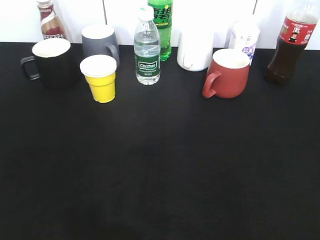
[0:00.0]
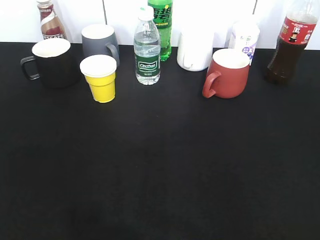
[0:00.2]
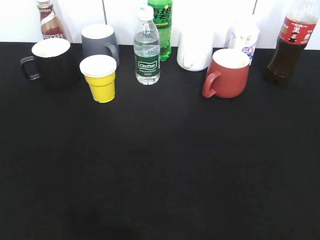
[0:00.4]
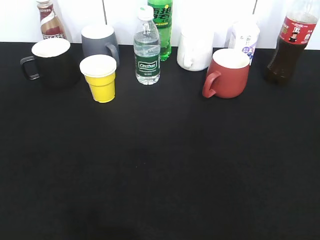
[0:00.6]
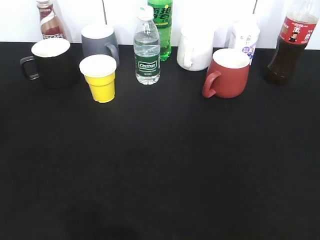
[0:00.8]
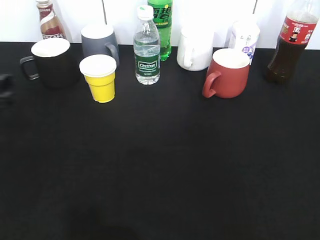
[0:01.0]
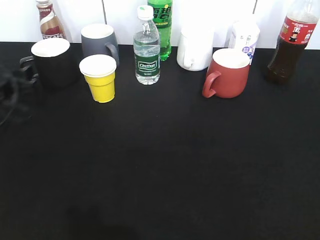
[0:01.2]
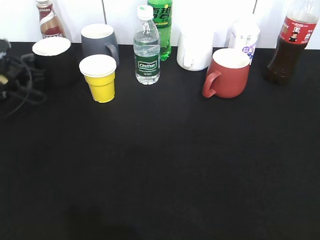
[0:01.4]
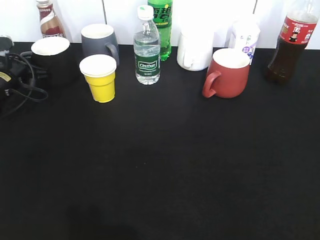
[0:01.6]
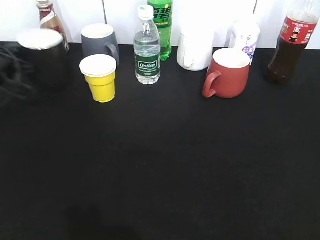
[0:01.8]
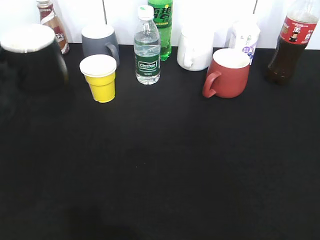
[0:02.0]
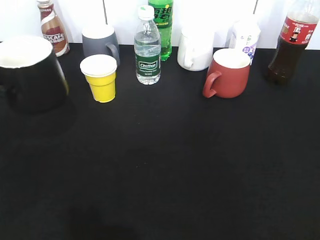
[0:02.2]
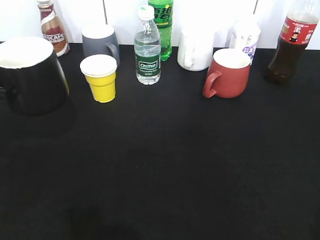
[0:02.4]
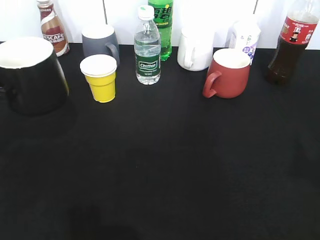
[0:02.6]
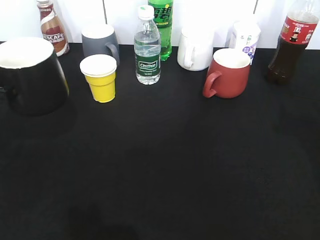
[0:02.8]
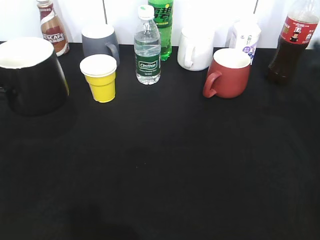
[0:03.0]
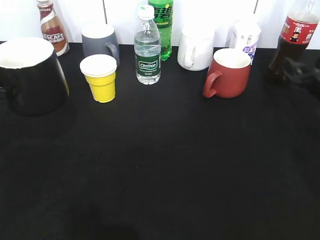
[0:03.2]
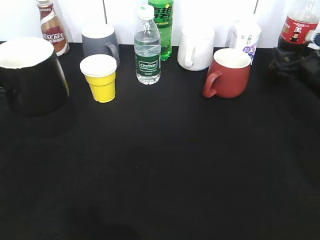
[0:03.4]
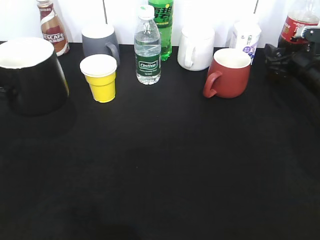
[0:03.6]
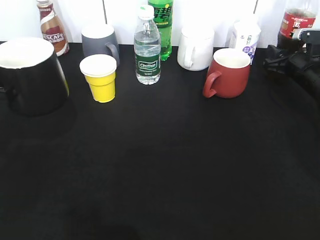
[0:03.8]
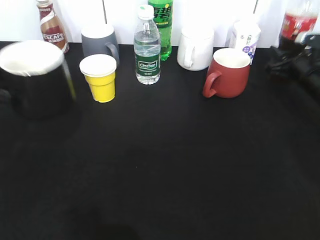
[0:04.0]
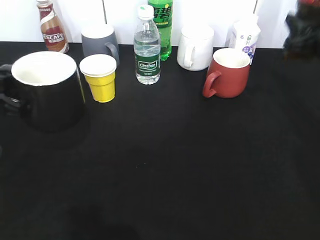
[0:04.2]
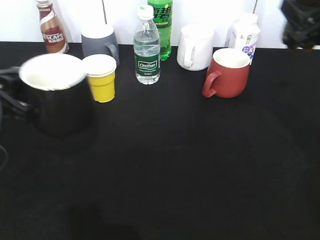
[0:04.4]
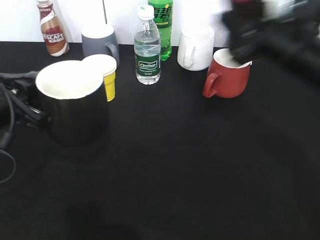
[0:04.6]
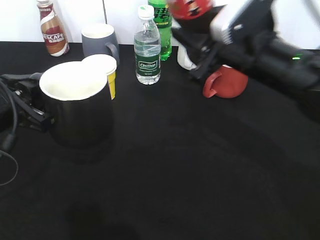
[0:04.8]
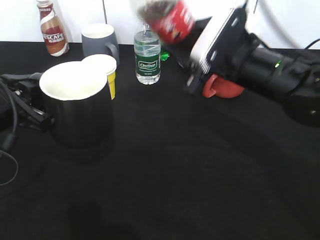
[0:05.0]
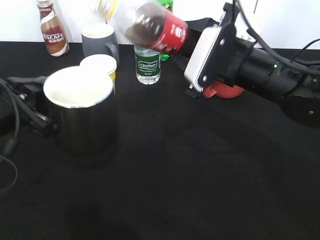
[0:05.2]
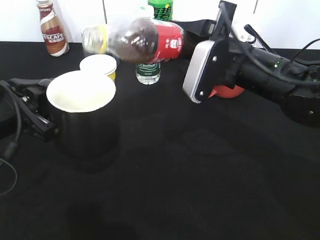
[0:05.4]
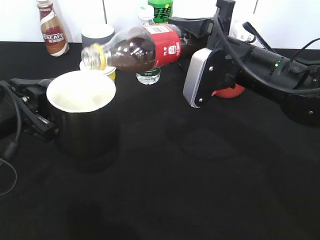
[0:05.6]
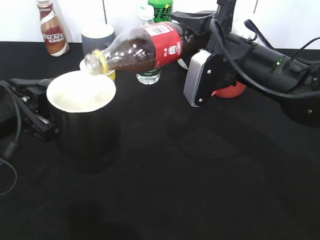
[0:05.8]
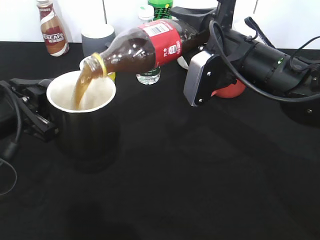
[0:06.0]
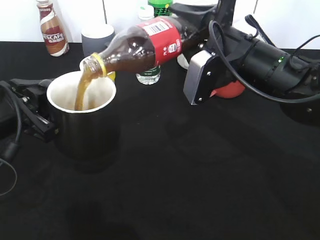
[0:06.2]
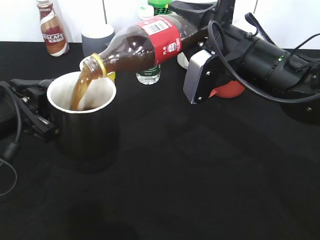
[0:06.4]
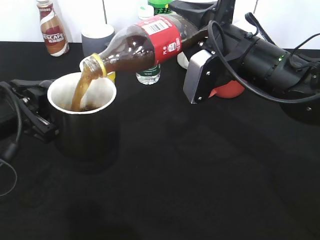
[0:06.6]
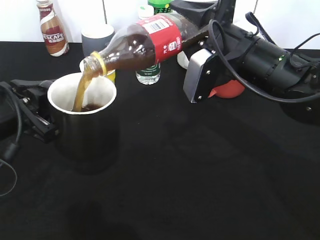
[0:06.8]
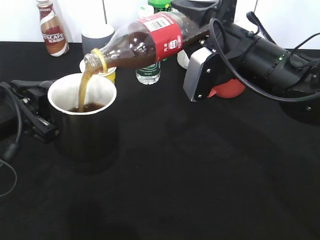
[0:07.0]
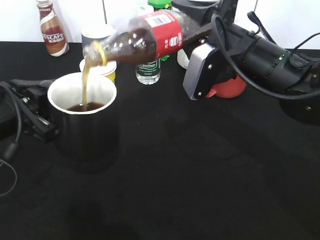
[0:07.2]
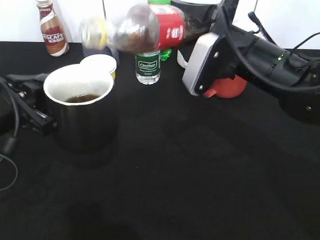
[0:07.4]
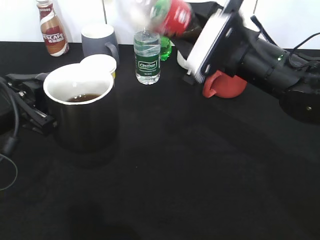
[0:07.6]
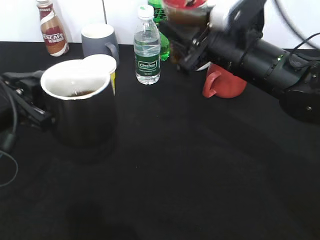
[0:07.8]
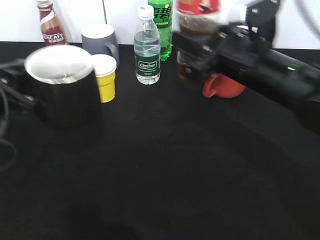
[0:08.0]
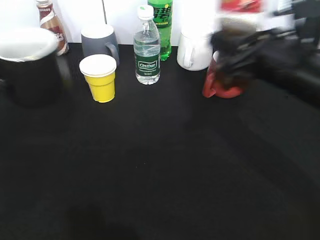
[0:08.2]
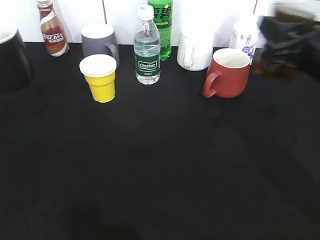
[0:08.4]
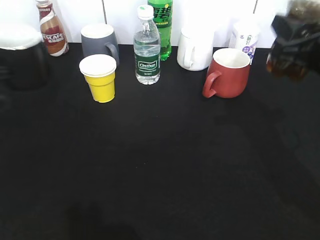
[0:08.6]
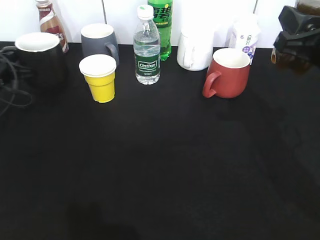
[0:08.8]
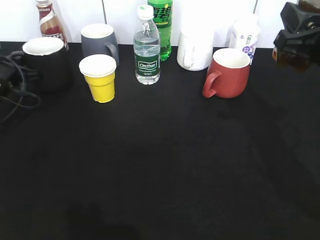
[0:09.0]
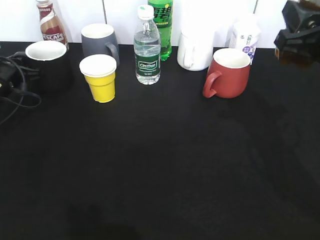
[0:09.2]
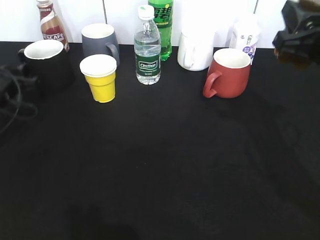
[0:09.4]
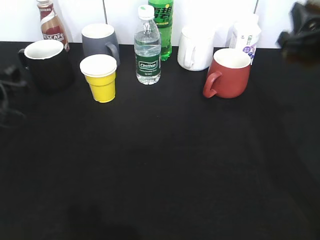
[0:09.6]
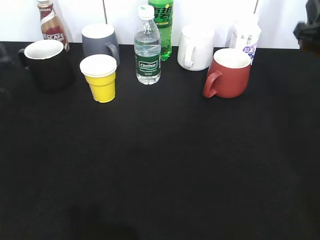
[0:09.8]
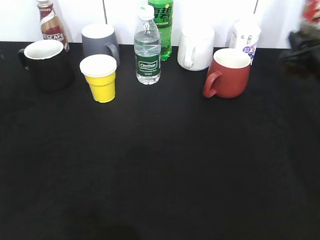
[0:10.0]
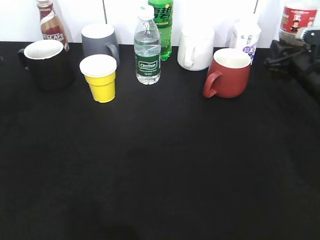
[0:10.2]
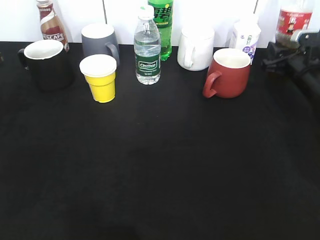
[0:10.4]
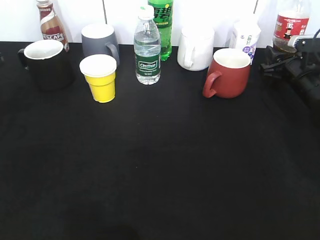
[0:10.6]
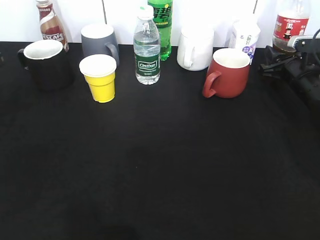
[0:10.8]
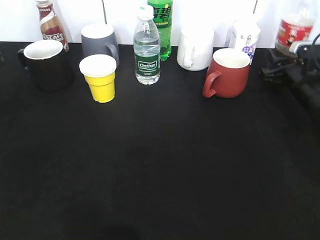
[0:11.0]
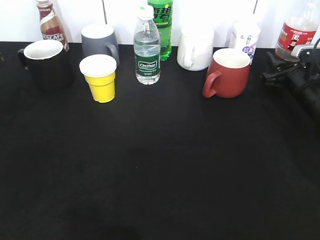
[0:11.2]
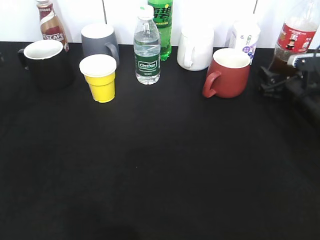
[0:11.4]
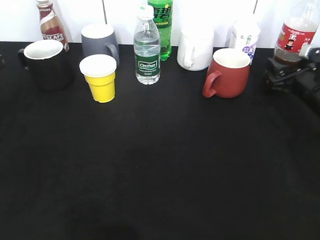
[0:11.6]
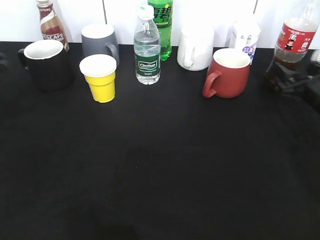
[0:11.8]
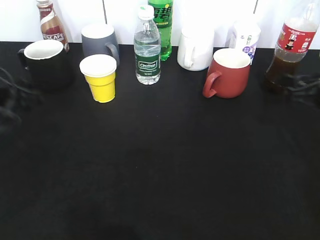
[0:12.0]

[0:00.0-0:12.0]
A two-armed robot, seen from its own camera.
Step, 0:01.8 to 0:02.8: Lift the black cup with left gripper.
Step, 0:03.0 to 0:03.8: Grasp the bottle with cola with right gripper.
Step, 0:04.0 to 0:07.4: Pour the cola from bottle to cup with right gripper.
Step, 0:07.6 to 0:09.8: Place the black cup on the table with left gripper.
0:00.0 to 0:01.6: The left gripper travels forward by approximately 40 cm, and closes its fingers.
0:01.6 to 0:03.0: The right gripper moves forward, some 30 cm. Meanwhile the left gripper travels backward and upward by approximately 20 cm.
0:03.0 to 0:04.4: The right gripper is displaced upward by about 5 cm, moves roughly 15 cm forward and comes back, and closes up.
0:04.4 to 0:06.0: The right gripper shifts roughly 15 cm to the left.
0:07.6 to 0:09.0: The left gripper heads forward, to the left and downward, covering about 20 cm, while the right gripper shifts approximately 15 cm to the right and backward.
0:09.0 to 0:10.4: The left gripper heads backward and upward, covering roughly 15 cm, and opens its fingers, while the right gripper goes about 20 cm forward, downward and to the right.
0:10.4 to 0:12.0: The right gripper is displaced backward by roughly 10 cm, and opens up.

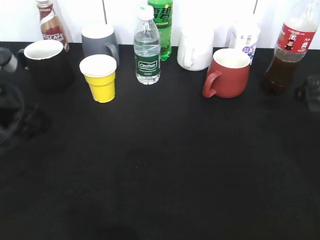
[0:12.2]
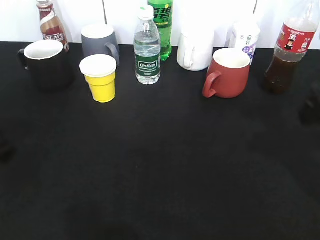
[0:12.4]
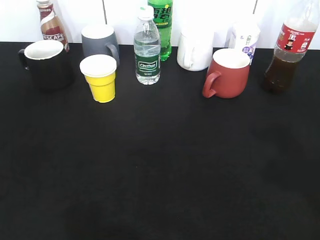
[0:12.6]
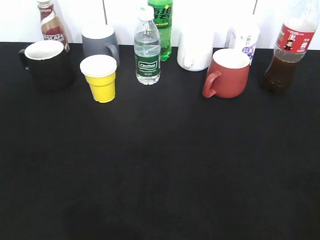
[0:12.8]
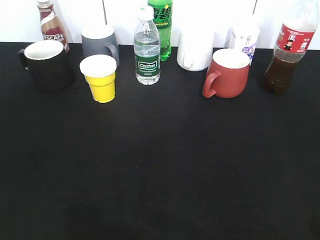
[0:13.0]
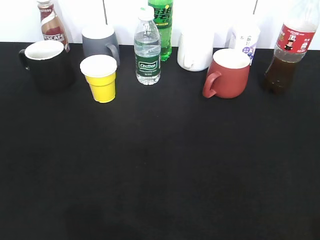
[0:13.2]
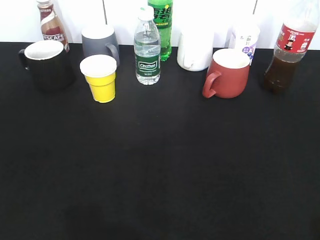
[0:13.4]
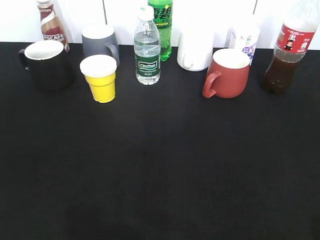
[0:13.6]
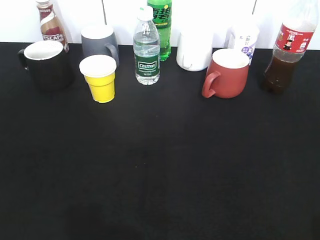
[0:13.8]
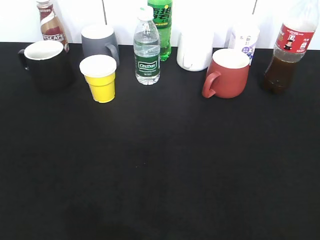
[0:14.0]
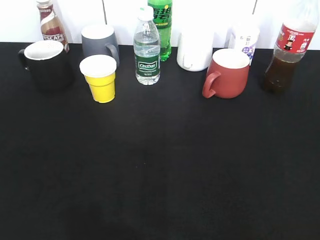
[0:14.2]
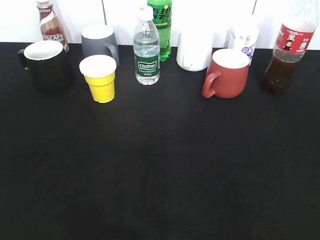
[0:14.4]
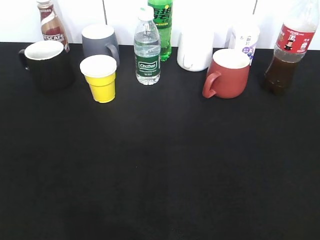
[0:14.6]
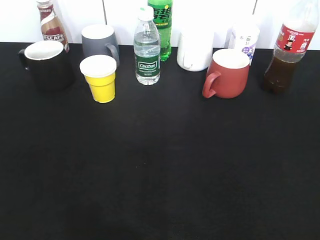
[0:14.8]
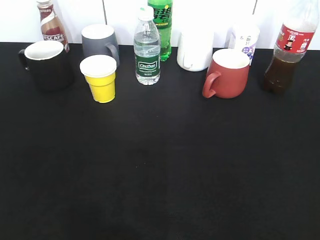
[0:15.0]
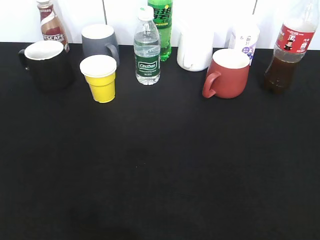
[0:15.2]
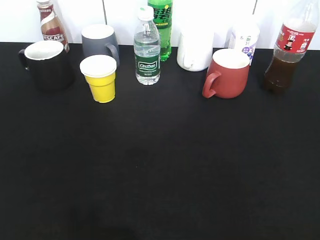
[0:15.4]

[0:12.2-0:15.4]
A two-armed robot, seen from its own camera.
0:12.2 to 0:13.8: Both grippers travel together backward, approximately 25 cm.
0:13.8 to 0:15.4: There are only small adjustments of the grippers.

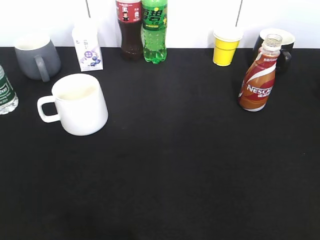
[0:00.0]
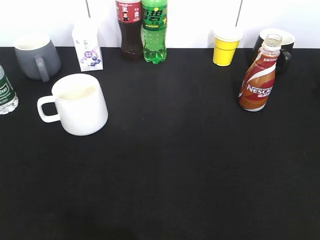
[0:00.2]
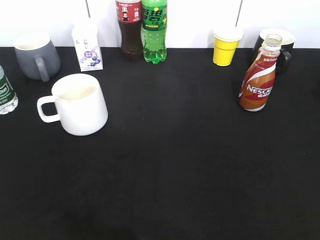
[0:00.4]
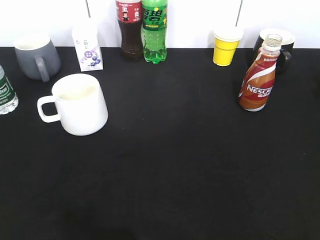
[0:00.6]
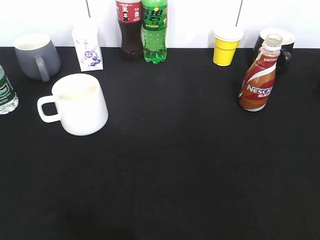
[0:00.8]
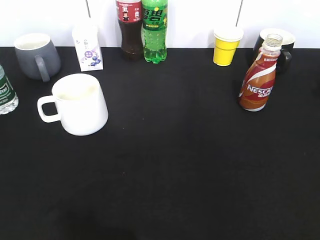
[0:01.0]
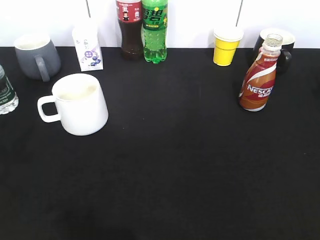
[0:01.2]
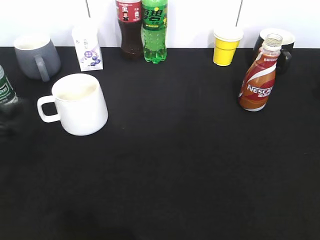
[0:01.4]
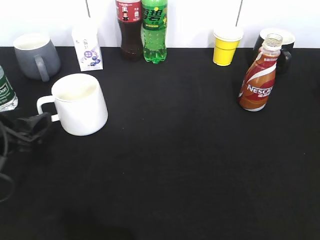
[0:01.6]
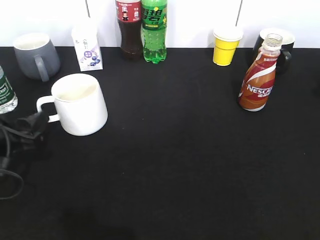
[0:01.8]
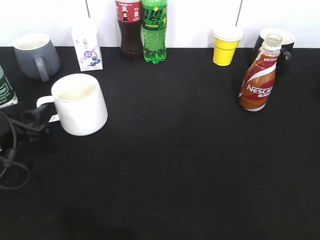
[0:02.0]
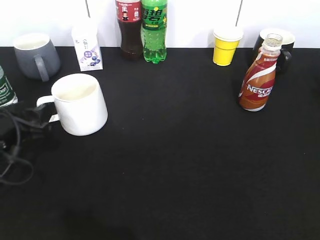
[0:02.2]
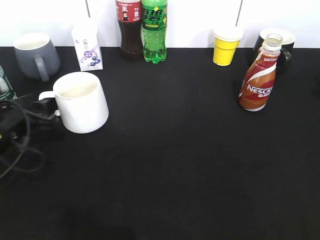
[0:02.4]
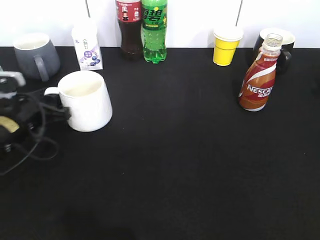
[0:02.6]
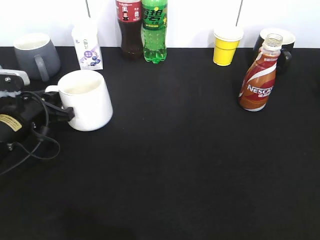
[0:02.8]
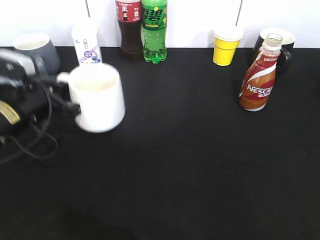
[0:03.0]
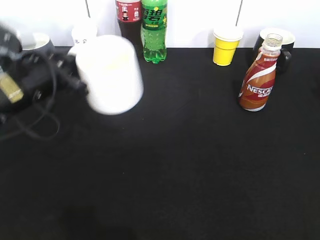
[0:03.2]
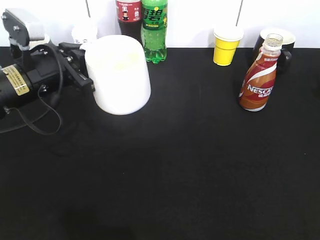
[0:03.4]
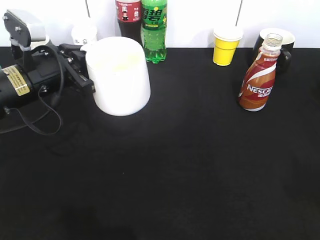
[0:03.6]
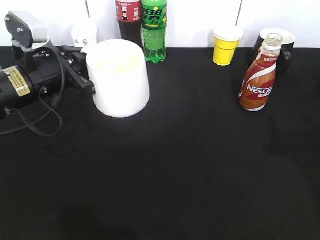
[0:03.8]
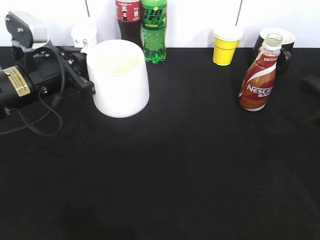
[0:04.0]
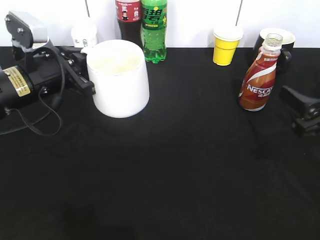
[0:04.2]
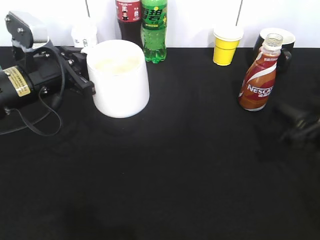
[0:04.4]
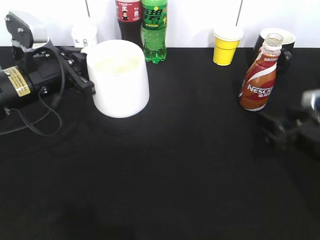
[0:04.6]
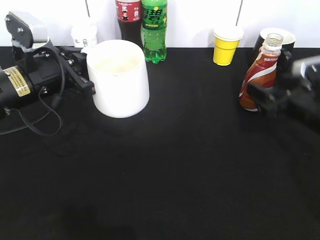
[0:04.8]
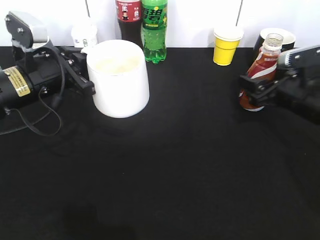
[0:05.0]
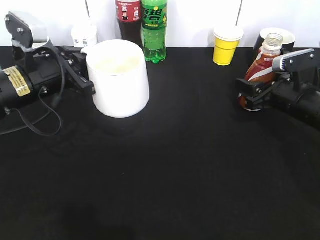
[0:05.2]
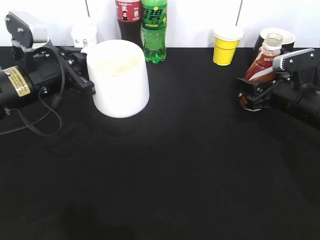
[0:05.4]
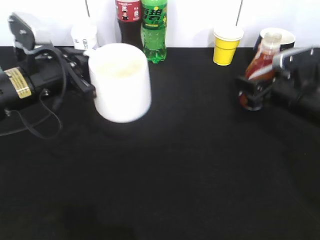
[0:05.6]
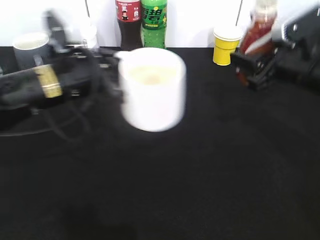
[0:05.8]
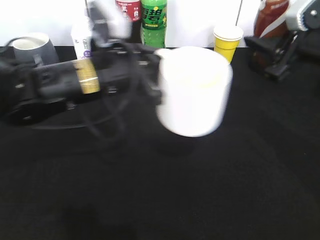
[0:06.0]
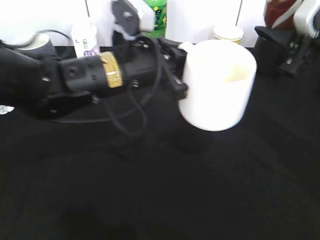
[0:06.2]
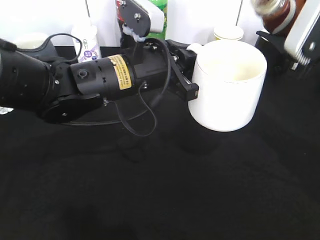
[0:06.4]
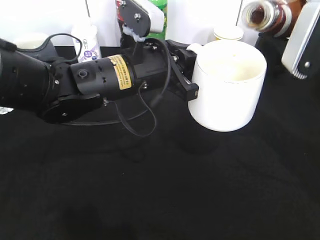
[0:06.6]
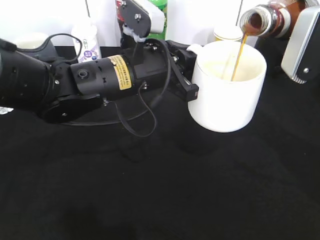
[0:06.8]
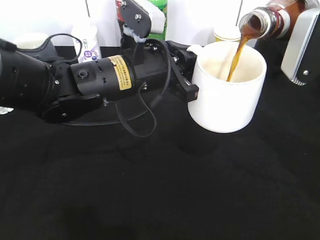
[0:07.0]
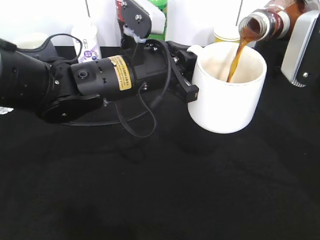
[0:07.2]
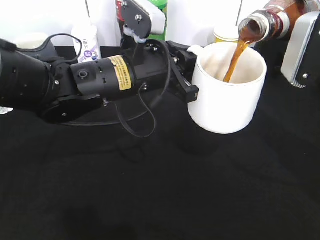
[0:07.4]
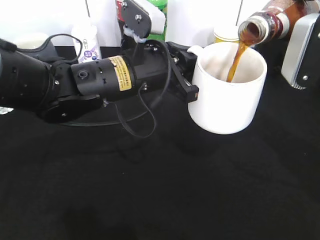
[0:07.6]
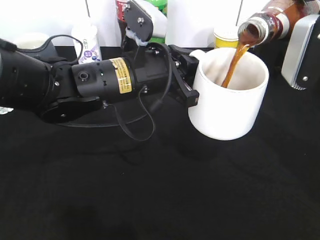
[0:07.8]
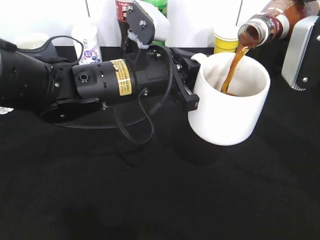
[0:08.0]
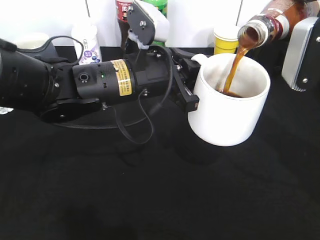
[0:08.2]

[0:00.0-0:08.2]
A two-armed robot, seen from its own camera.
Step, 0:00.6 to 0:02.6: Grasp the white cup with left gripper.
Step, 0:02.8 to 0:03.2: Lift the white cup with left gripper.
Step, 0:03.6 to 0:05.4: Grasp the bottle with coffee with right gripper.
0:00.0 to 0:01.6: The left gripper moves forward and downward, approximately 25 cm, and opens its fingers.
0:01.6 to 0:03.2: The left gripper heads forward and to the right, covering approximately 10 cm, and closes.
0:03.2 to 0:05.0: The right gripper is displaced forward and downward by some 35 cm, and opens its fingers.
0:05.0 to 0:06.6: The left gripper goes roughly 15 cm to the right. Meanwhile the right gripper goes approximately 15 cm upward and backward, and closes its fingers.
0:06.6 to 0:08.2: The grippers stay close to where they were, moving slightly.
